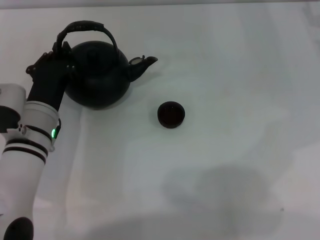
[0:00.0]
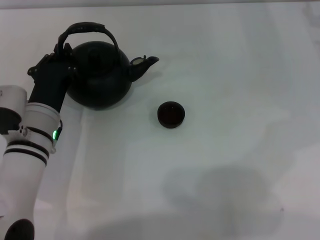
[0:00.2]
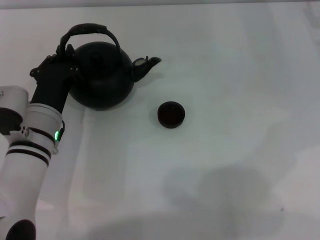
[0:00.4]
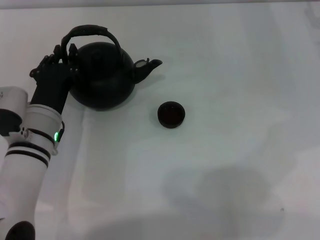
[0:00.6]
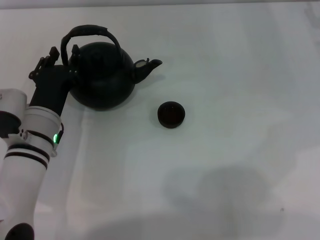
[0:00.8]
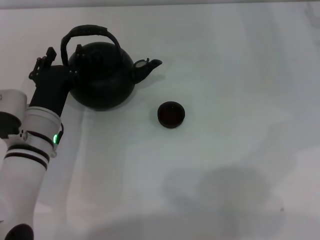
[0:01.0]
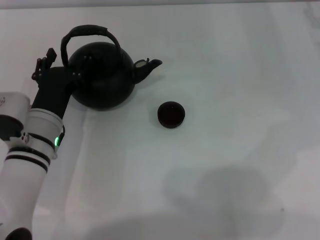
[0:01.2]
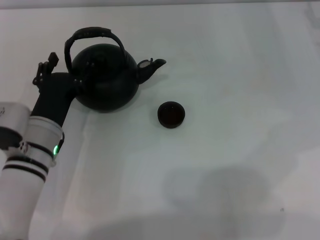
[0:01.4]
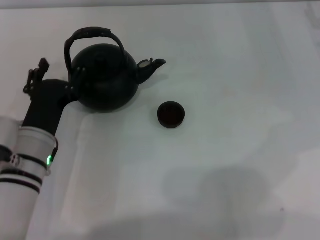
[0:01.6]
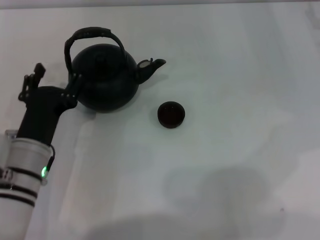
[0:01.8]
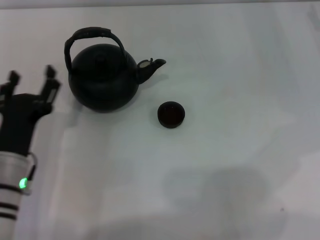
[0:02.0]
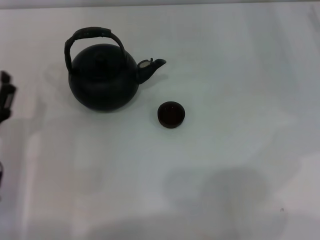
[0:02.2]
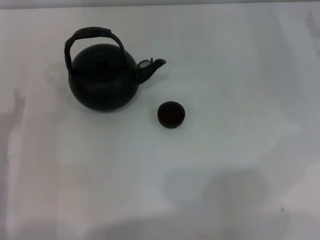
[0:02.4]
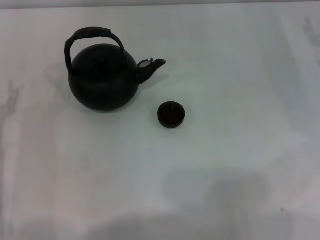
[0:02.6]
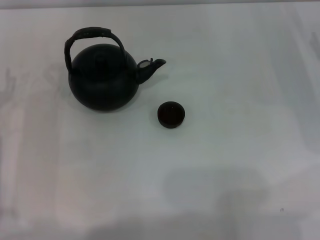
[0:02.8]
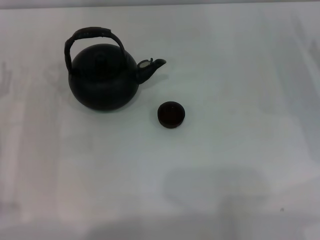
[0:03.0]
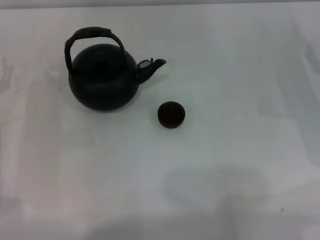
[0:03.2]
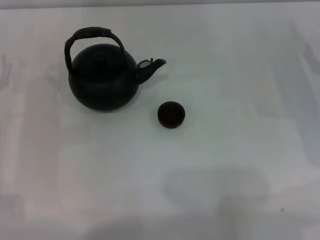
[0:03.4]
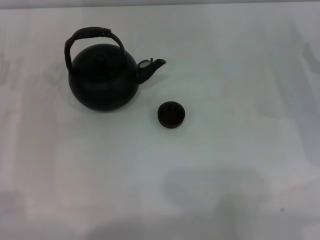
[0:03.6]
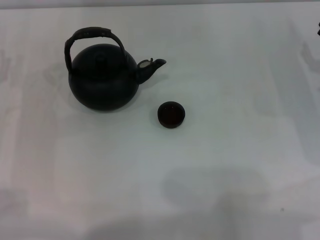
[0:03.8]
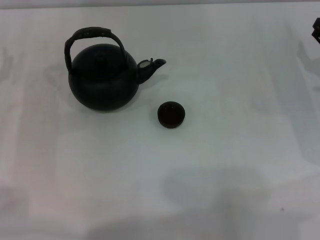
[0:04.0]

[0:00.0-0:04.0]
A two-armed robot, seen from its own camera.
Task of the whole recording: Grasp the handle of the teapot with one hand and pour tea into the teacup.
0:00.0 to 0:01.4: The left gripper opens.
0:01.4 to 0:02.6: The left gripper heads to the left, covering approximately 10 cm.

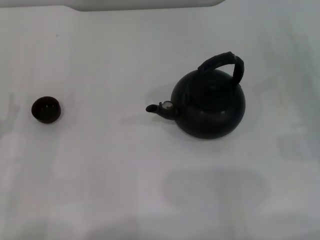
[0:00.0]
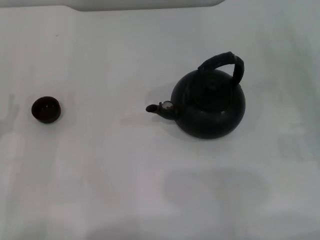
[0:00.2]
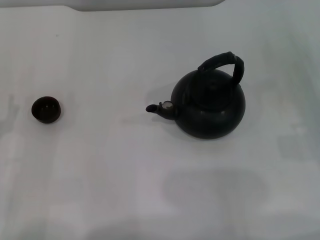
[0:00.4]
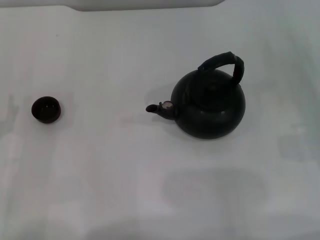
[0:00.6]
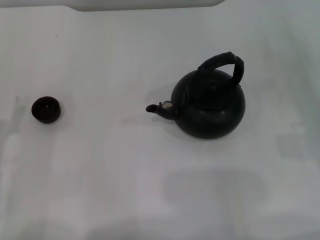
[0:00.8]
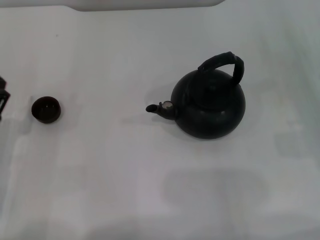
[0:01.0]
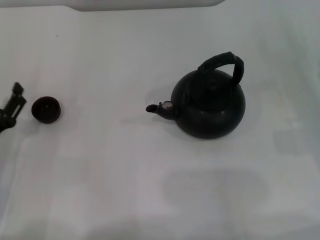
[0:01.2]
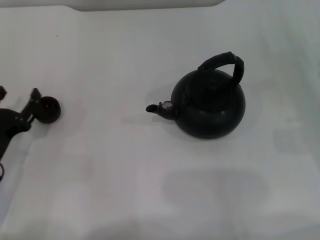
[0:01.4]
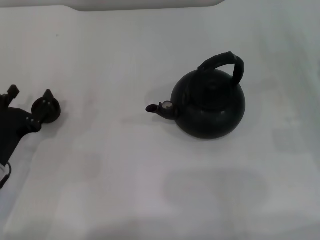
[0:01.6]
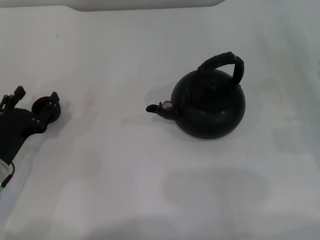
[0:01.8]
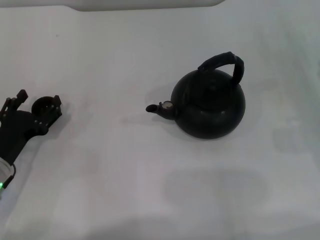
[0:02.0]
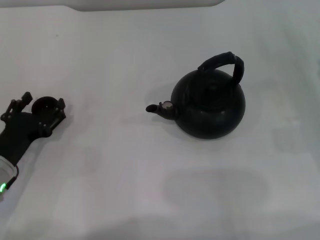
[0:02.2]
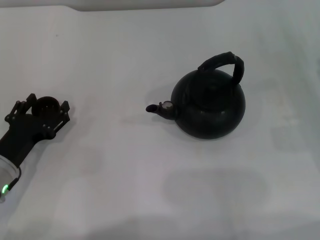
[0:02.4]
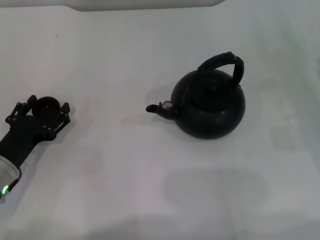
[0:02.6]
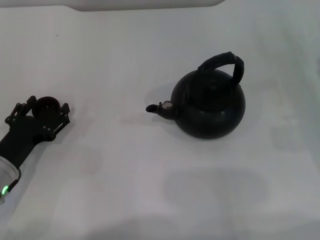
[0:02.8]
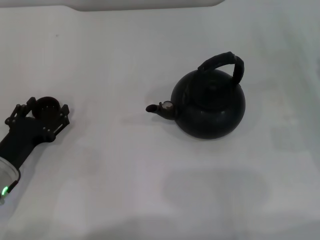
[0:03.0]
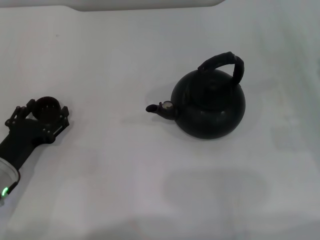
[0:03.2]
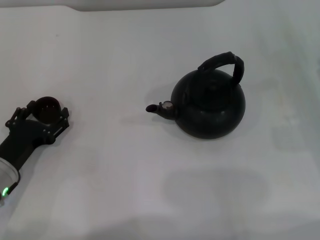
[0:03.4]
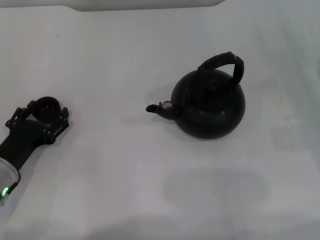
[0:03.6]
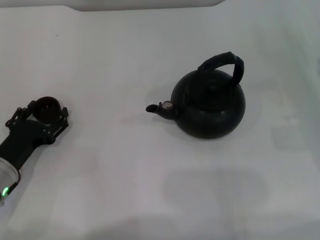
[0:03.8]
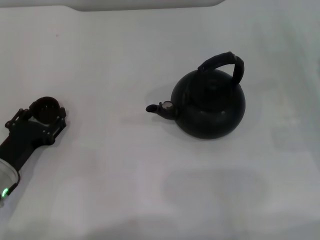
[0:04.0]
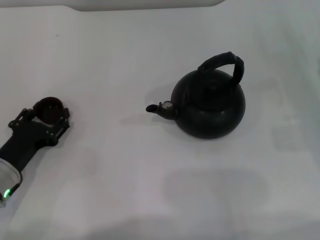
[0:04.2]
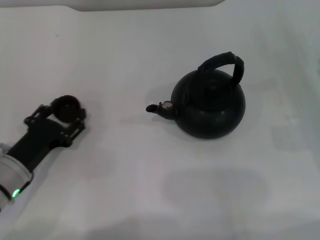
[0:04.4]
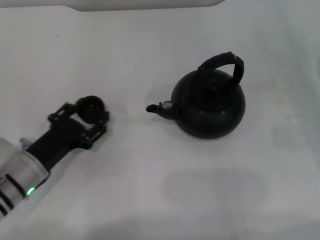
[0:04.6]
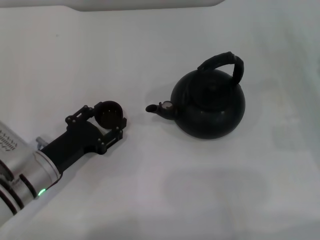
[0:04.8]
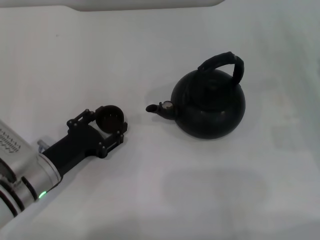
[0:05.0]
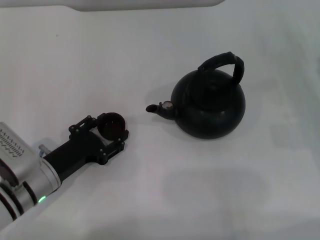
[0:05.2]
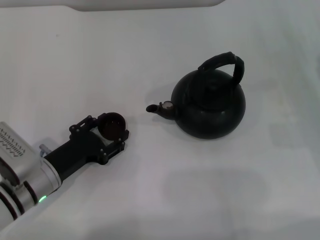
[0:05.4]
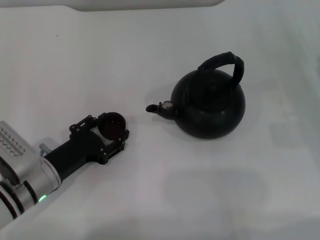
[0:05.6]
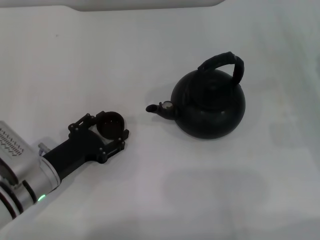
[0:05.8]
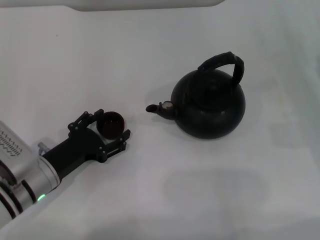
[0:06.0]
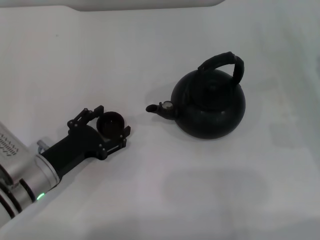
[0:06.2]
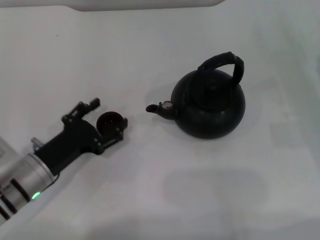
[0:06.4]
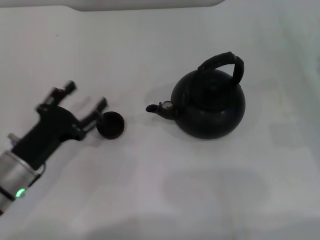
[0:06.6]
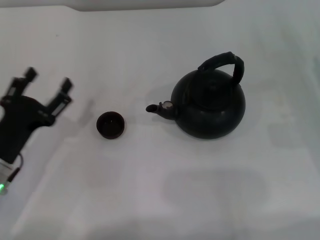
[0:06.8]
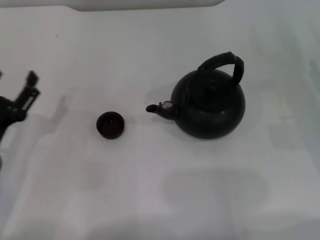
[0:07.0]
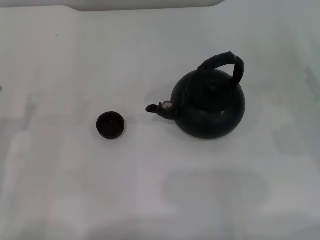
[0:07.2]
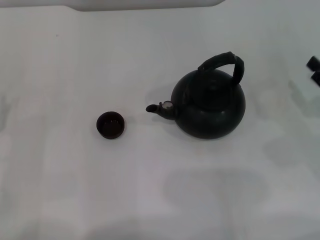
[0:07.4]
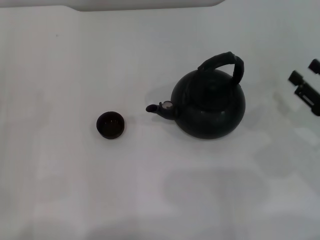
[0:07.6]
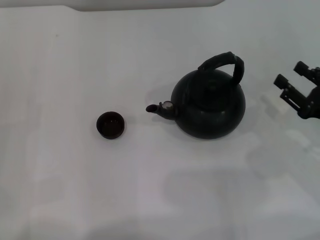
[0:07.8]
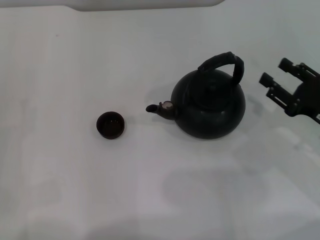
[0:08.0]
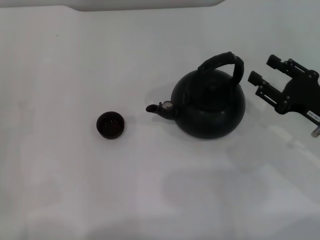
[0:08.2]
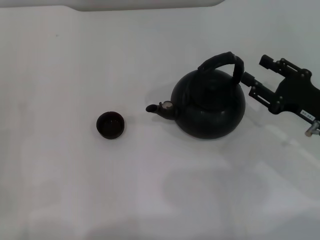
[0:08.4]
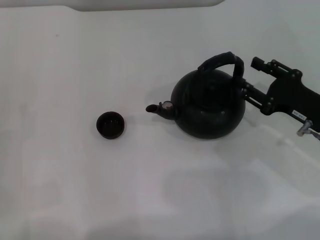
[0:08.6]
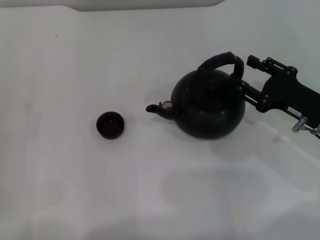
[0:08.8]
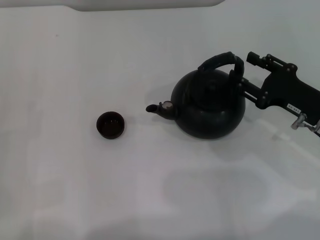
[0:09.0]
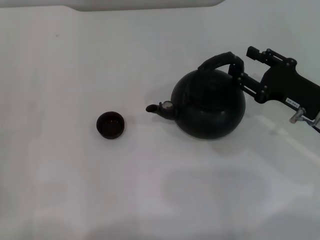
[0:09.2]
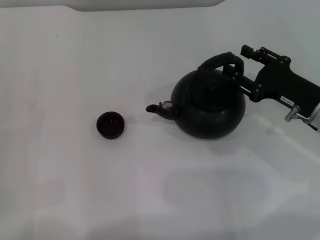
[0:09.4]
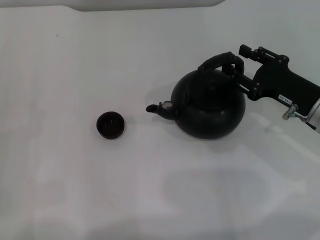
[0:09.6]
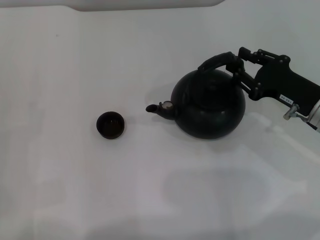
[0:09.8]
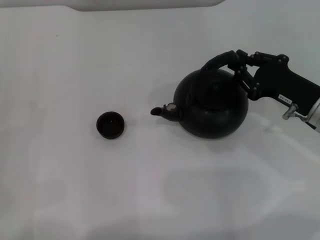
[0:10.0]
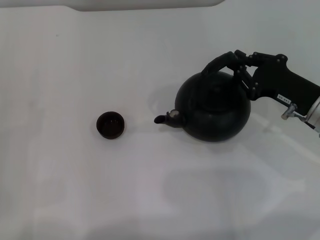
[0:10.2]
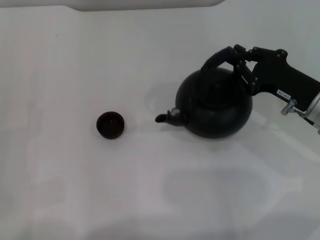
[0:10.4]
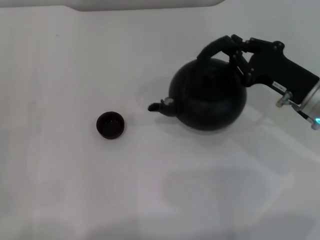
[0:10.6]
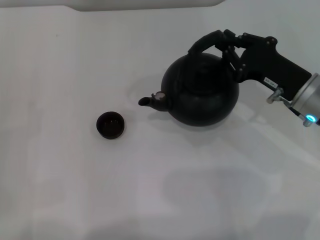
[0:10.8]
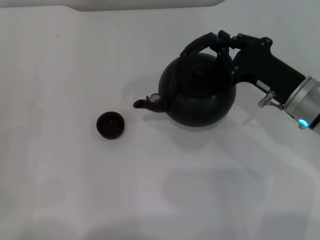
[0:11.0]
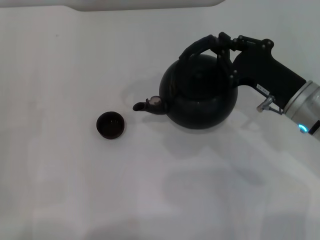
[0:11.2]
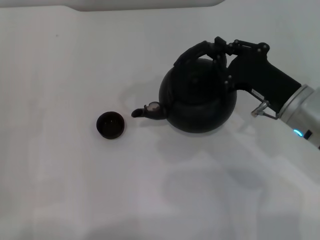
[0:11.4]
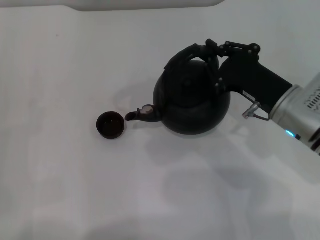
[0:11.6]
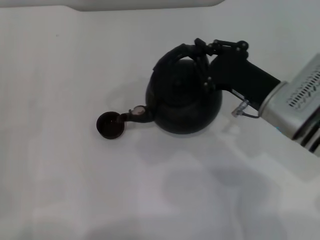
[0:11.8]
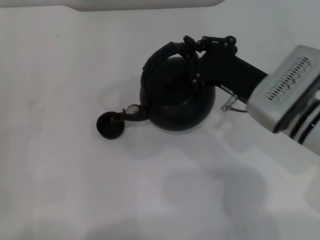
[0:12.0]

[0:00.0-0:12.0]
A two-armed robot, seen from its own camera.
Task of the whole recording: Grasp the handle of the teapot with one hand and pour tea into the teacup.
Step, 0:00.0 to 0:04.2: Pick up the teacup with the left gripper.
Step, 0:04.4 to 0:06.6: Place the teacup in the center of view with the left gripper.
Step, 0:06.8 to 0:10.6: Pick up the teapot with the right gripper.
0:00.0 to 0:01.6: The left gripper changes place by approximately 5 cm.
0:01.6 to 0:03.0: There are only small adjustments of the grippers.
0:03.0 to 0:04.4: The left gripper closes up.
0:04.4 to 0:06.0: The left gripper opens.
0:06.0 to 0:07.6: The left gripper shifts approximately 10 cm to the left, and opens.
0:07.6 to 0:09.0: The right gripper moves to the left, approximately 5 cm.
0:09.0 to 0:10.4: The right gripper closes up.
0:10.4 to 0:12.0: The right gripper shifts about 10 cm to the left.

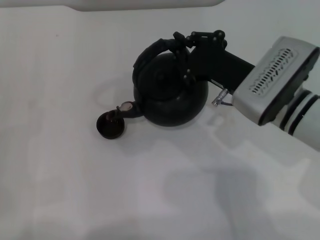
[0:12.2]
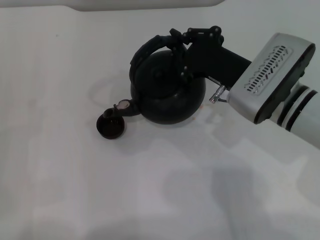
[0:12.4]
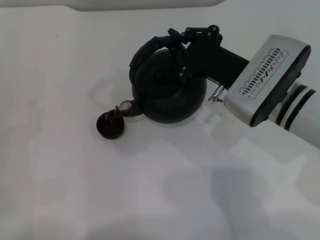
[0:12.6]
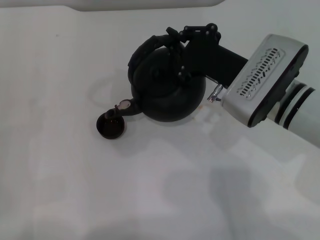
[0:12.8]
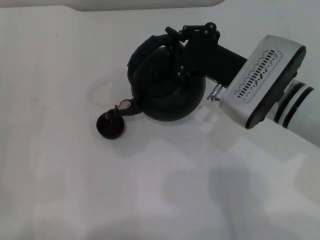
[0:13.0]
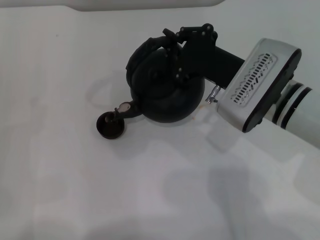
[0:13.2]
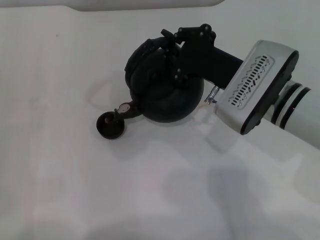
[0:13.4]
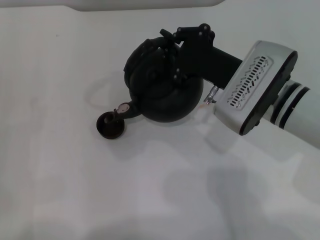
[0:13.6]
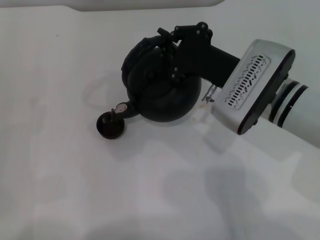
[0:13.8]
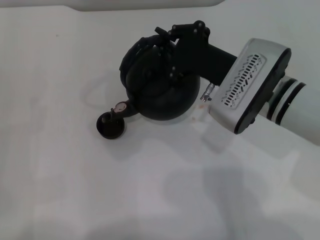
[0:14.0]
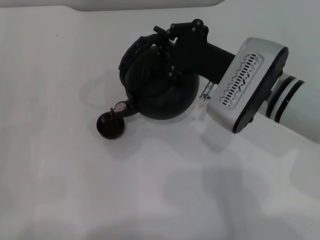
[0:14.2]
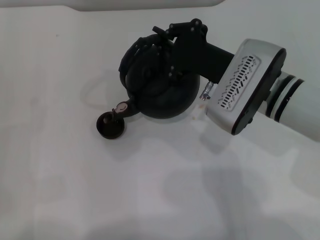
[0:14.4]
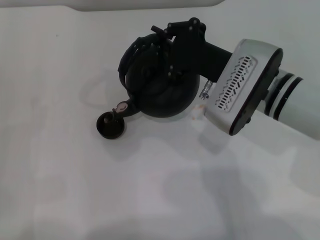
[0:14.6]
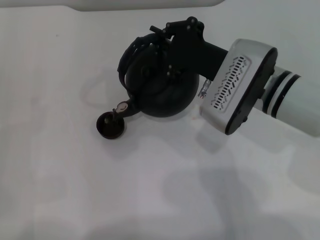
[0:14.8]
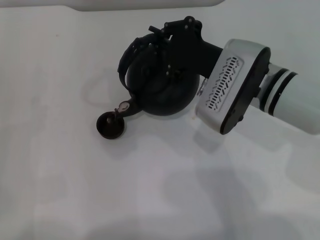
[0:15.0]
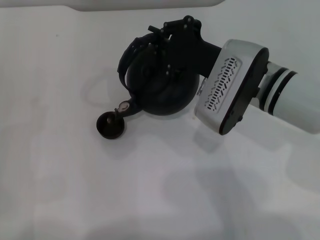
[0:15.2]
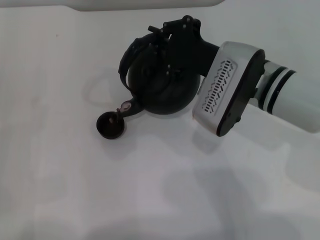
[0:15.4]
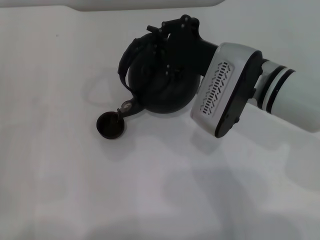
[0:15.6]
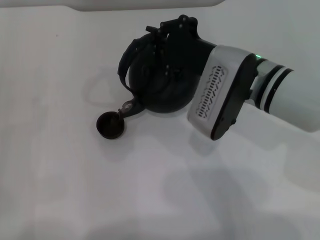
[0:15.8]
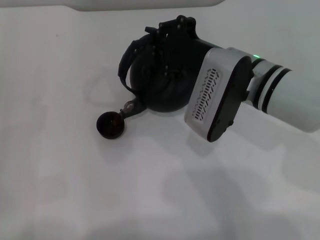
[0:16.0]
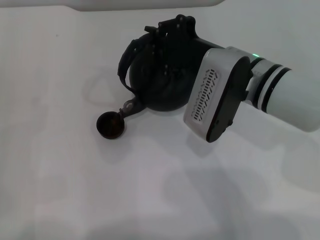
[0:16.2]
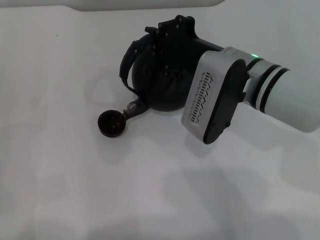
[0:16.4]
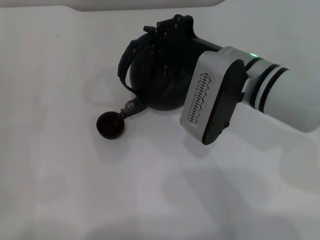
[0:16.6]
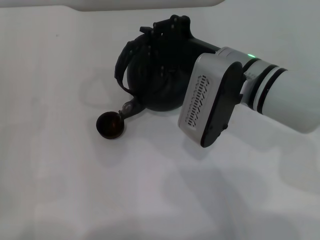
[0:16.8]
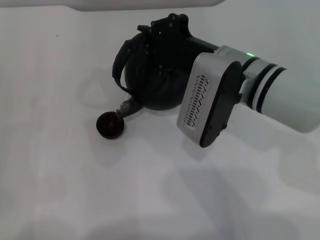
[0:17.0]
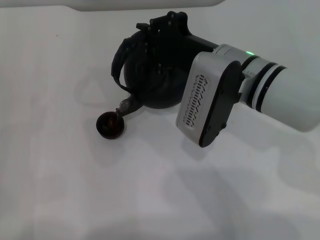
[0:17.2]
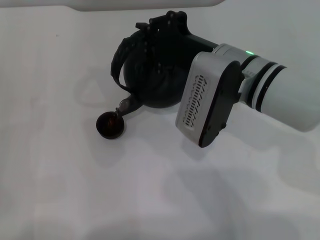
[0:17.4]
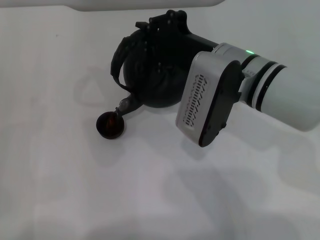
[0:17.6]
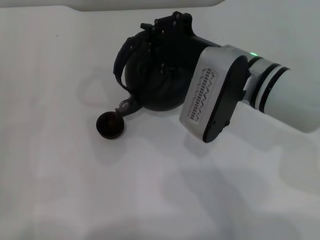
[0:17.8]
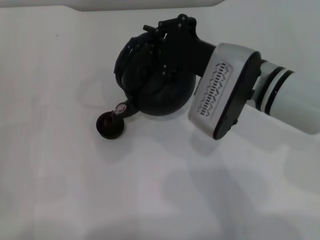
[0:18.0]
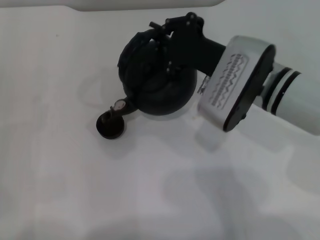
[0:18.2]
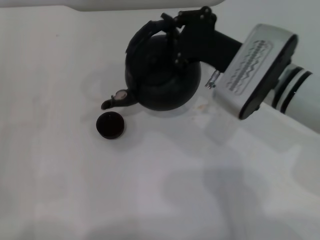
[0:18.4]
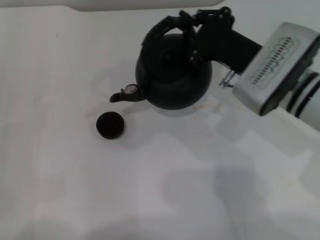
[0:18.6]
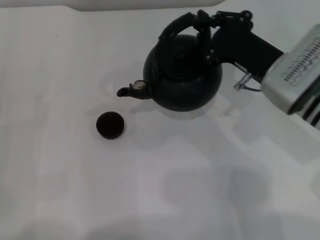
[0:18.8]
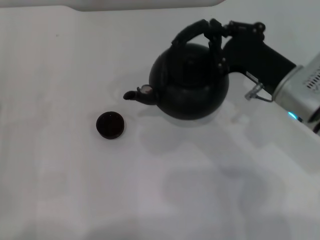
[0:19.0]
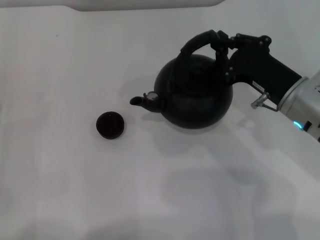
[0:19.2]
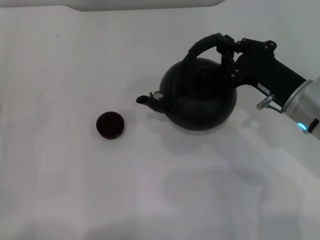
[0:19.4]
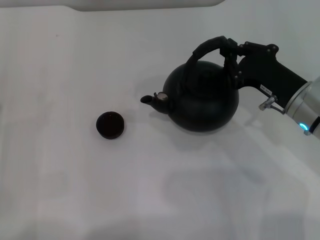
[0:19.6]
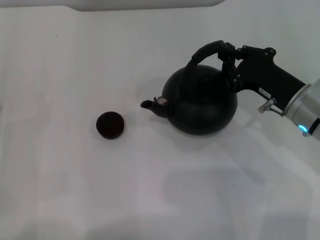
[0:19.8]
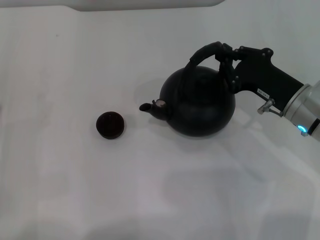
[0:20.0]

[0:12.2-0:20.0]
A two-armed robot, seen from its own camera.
Task of the whole recording: Grasp the handle of the teapot with one hand and pour tea into the teacup.
Step, 0:12.2 to 0:18.6: Pour tea into the teacup with the right gripper.
0:12.2 to 0:13.8: There are only small adjustments of the grippers.
0:13.8 to 0:15.4: The grippers make only small movements.
0:15.4 to 0:16.8: The grippers make only small movements.
0:18.4 to 0:20.0: The right gripper shifts approximately 10 cm to the right and downward.
